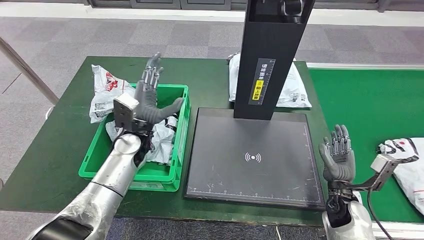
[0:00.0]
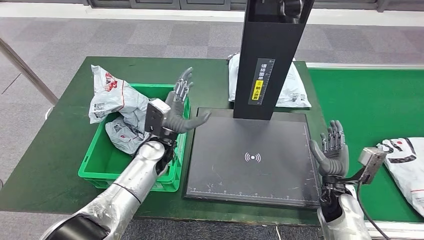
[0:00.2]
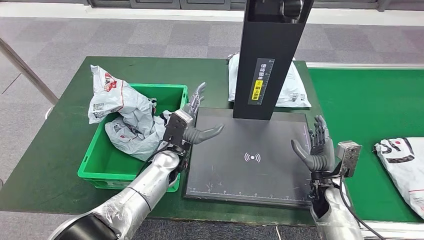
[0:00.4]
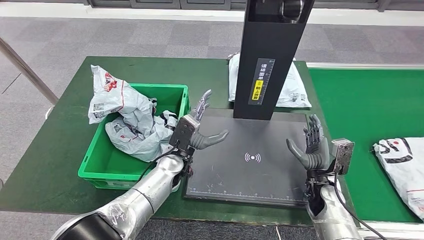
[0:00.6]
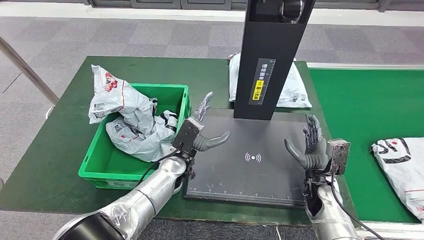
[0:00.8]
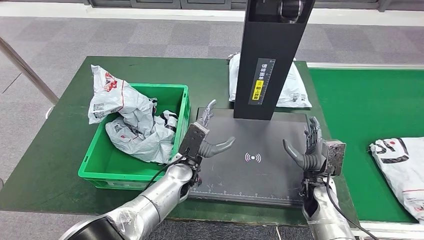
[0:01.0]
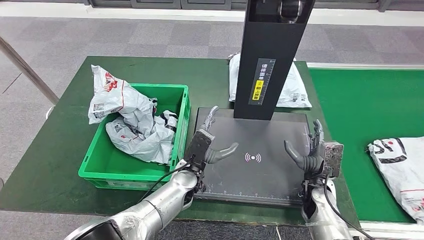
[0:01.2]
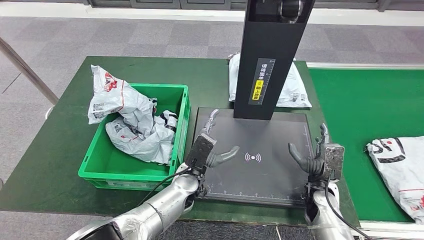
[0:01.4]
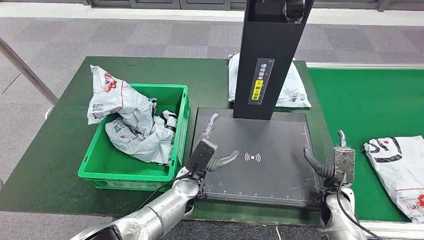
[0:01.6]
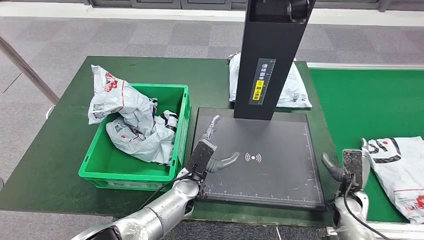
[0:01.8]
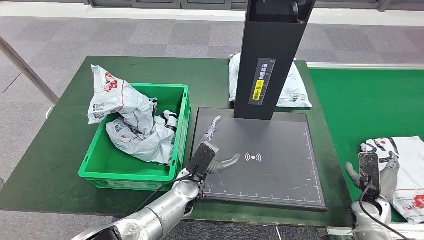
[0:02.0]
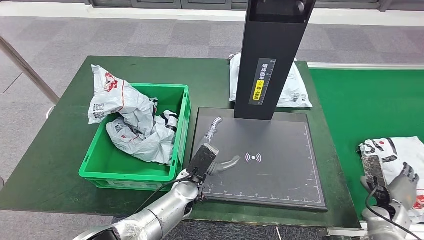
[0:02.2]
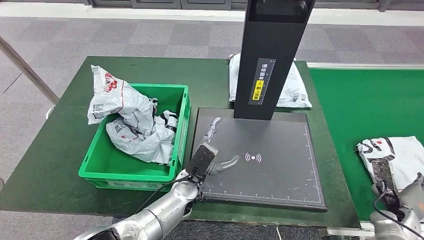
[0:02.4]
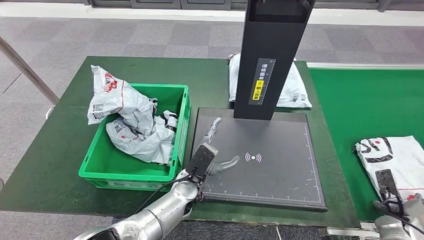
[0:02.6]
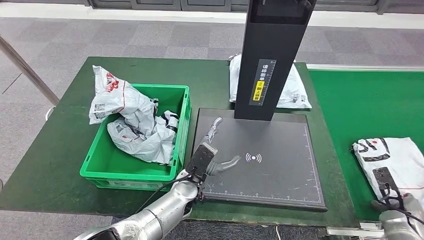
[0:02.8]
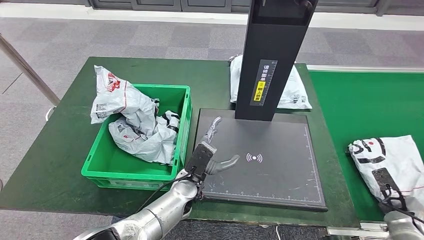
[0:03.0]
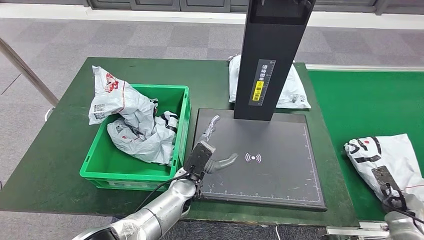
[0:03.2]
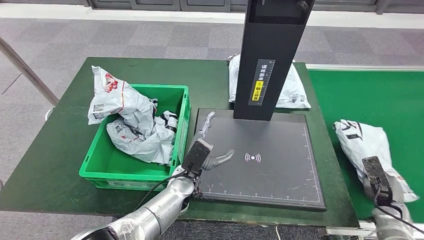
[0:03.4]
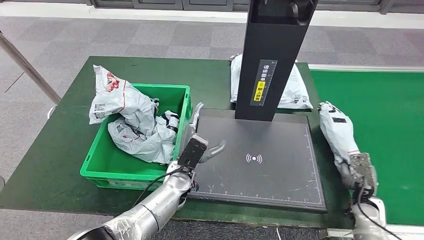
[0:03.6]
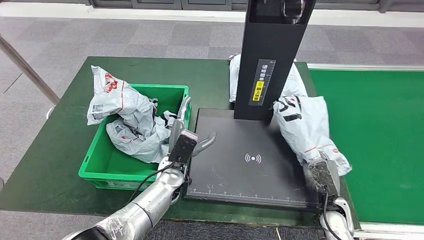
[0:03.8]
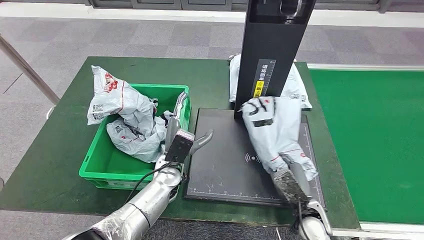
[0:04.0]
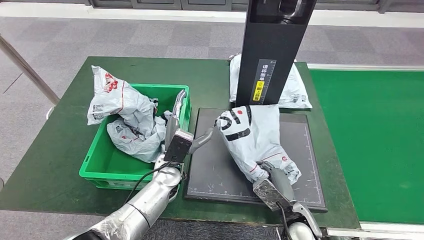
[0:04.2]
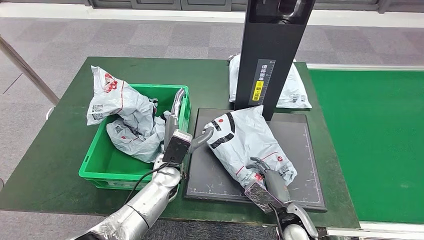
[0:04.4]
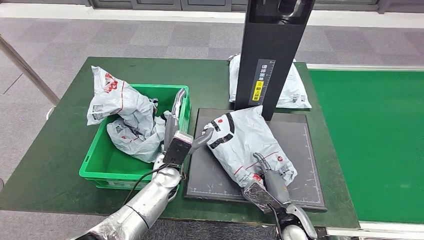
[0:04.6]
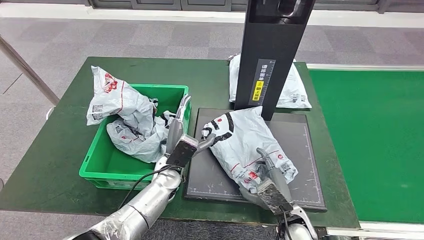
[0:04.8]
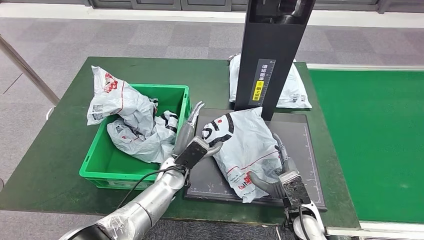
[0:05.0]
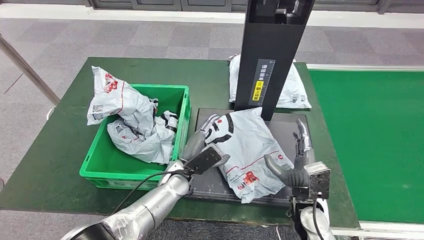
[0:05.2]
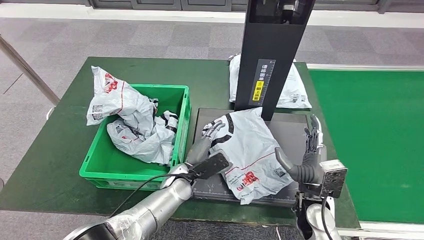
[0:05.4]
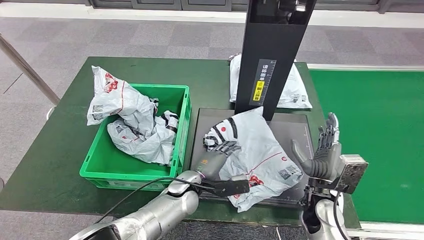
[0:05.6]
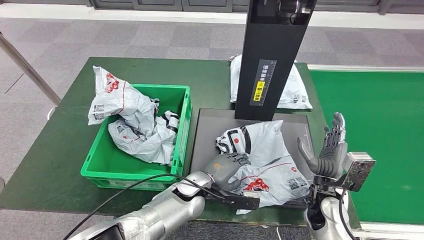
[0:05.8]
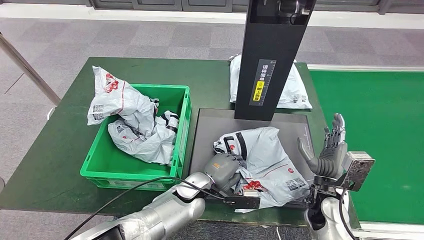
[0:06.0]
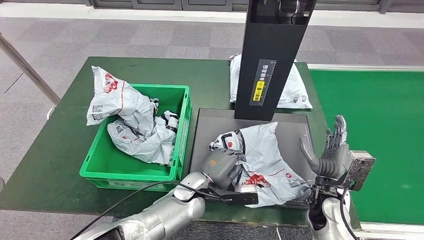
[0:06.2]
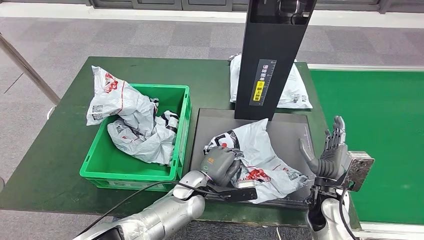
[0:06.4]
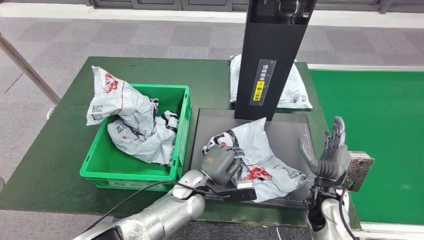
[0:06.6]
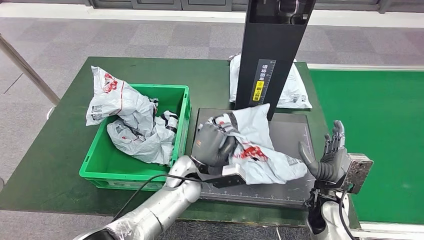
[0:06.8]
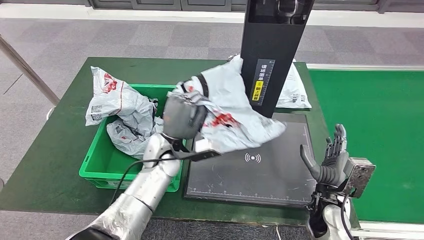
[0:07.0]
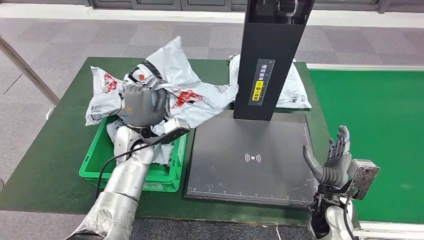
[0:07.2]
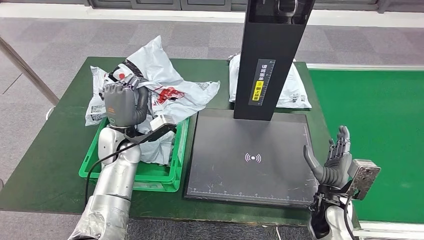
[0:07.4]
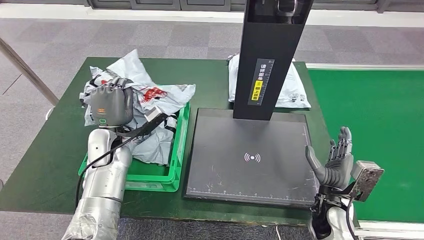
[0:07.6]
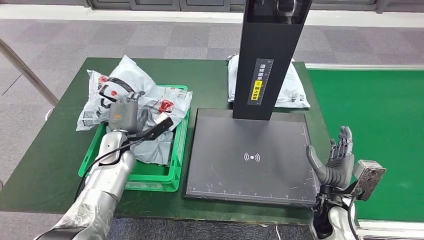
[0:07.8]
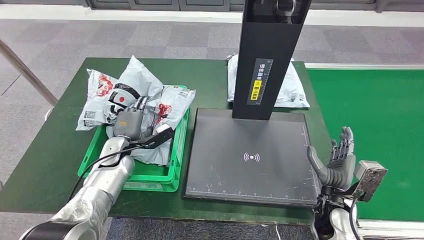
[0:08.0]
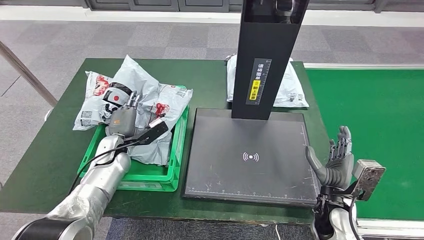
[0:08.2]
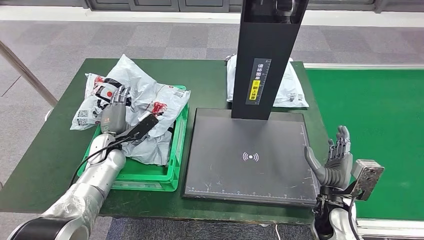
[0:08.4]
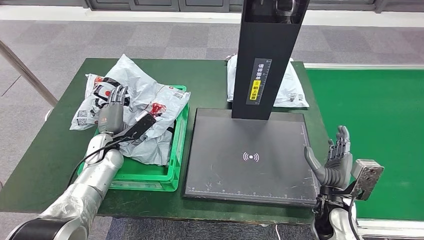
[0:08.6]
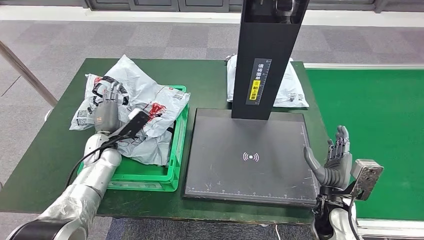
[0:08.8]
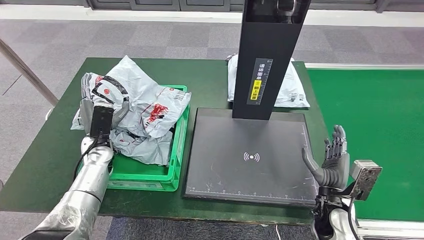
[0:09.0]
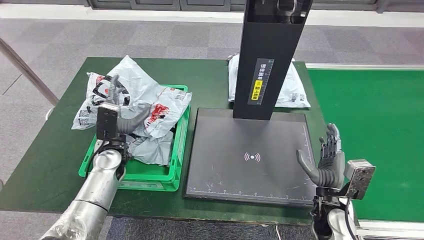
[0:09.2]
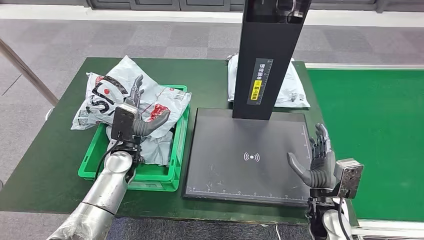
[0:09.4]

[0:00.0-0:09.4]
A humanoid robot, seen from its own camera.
Step, 0:00.0 to 0:03.2: Pick up the parcel from the conveyor belt.
Step, 0:03.6 to 0:05.6: Place the parcel onto the inbound machine.
Step, 0:05.8 to 0:07.6: Pick up the parcel from the inbound machine.
Step, 0:07.8 to 0:09.2: Place the parcel into the delivery box.
0:00.0 to 0:01.6: The left hand moves to the right, downward and backward, about 20 cm.
0:01.6 to 0:03.2: The right hand travels to the right by approximately 20 cm.
0:04.8 to 0:06.2: The left hand travels to the right by roughly 5 cm. Meanwhile the right hand heads to the right, upward and forward, covering roughly 10 cm.
0:07.8 to 0:09.4: The left hand reaches some 5 cm to the left, then returns.

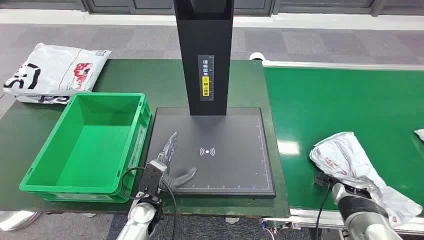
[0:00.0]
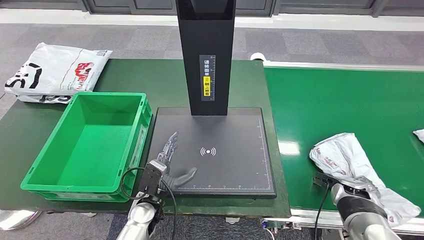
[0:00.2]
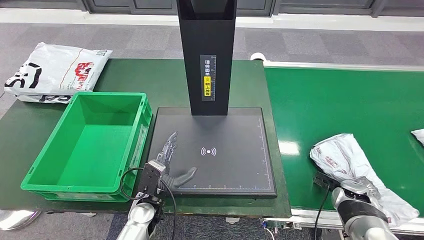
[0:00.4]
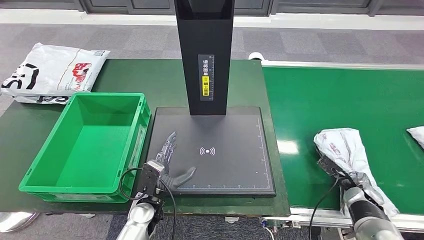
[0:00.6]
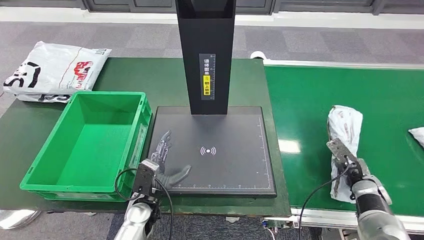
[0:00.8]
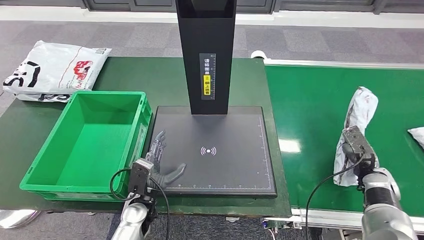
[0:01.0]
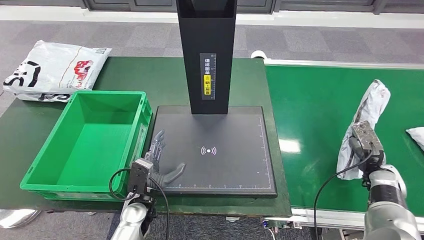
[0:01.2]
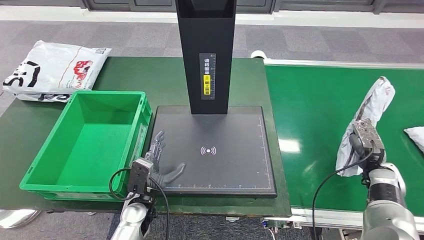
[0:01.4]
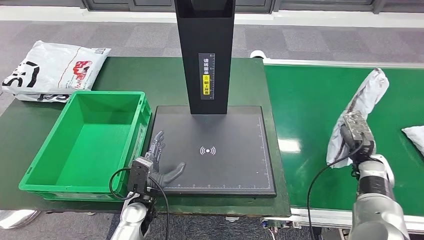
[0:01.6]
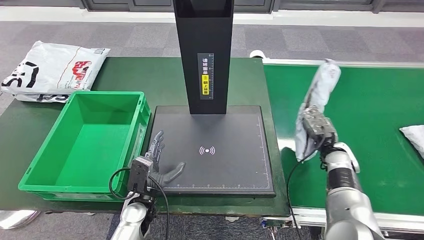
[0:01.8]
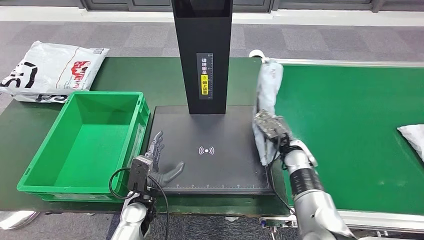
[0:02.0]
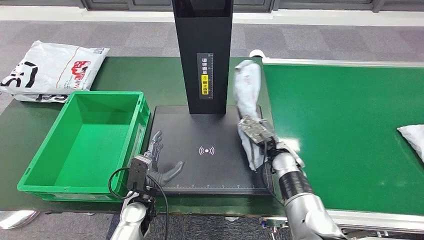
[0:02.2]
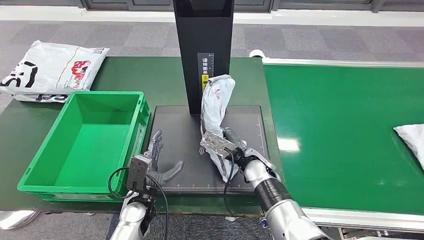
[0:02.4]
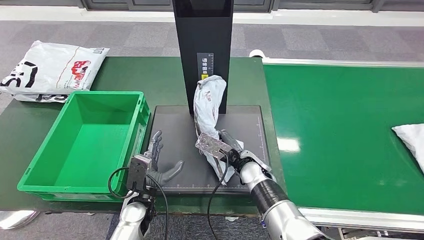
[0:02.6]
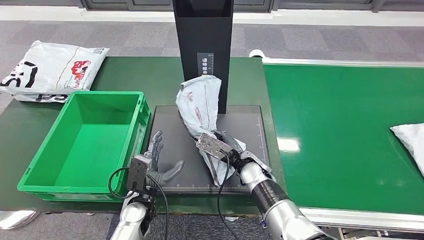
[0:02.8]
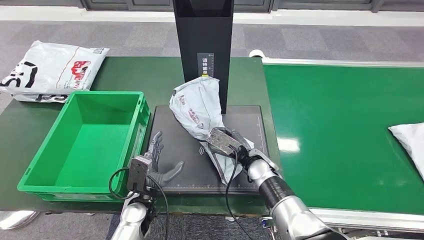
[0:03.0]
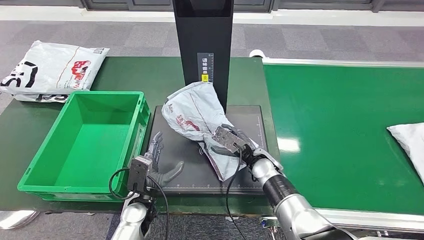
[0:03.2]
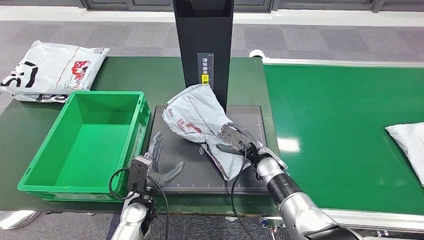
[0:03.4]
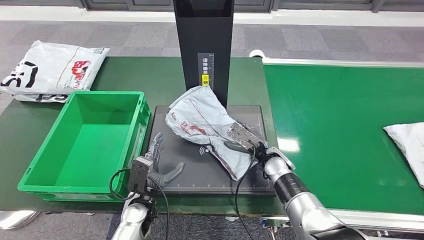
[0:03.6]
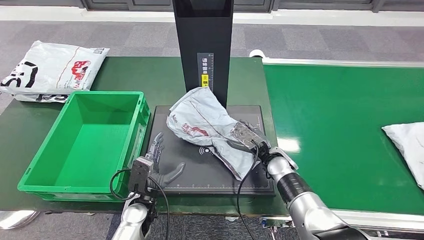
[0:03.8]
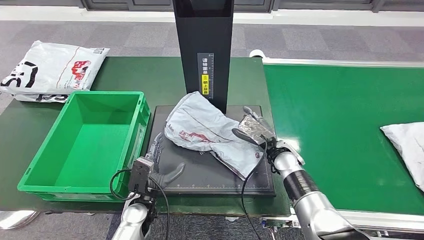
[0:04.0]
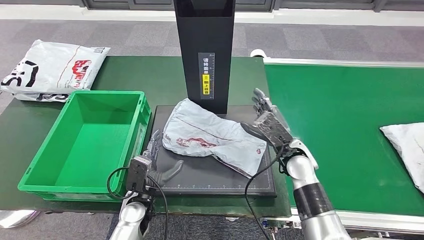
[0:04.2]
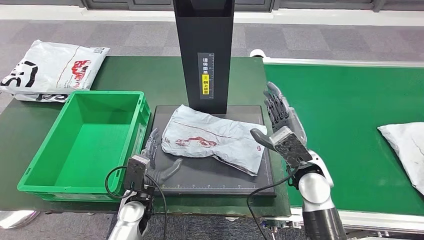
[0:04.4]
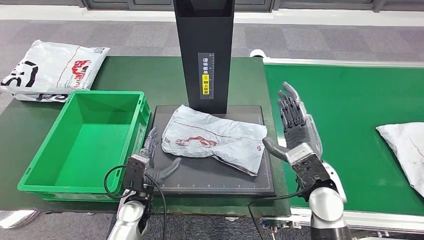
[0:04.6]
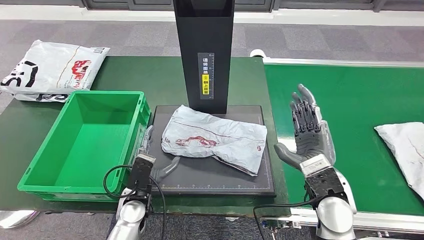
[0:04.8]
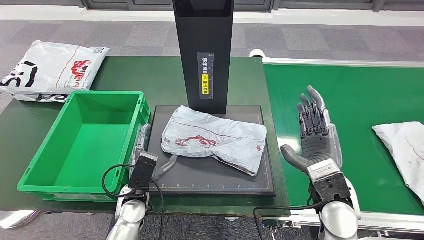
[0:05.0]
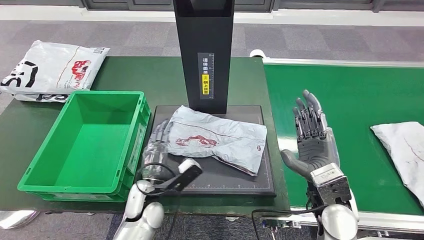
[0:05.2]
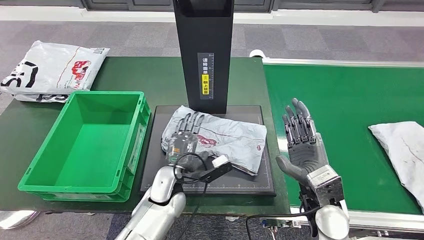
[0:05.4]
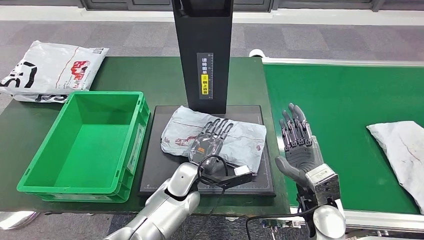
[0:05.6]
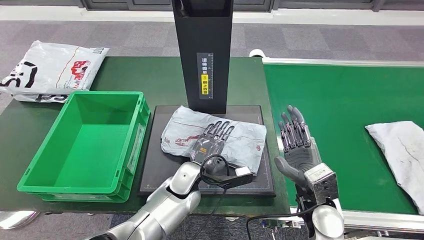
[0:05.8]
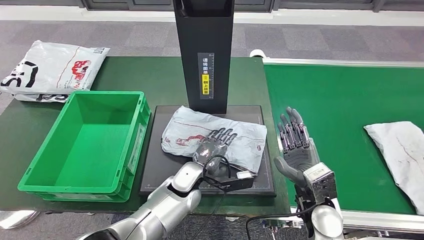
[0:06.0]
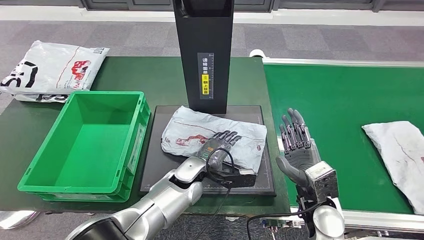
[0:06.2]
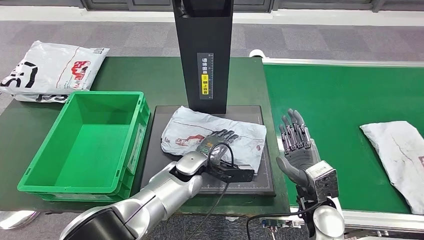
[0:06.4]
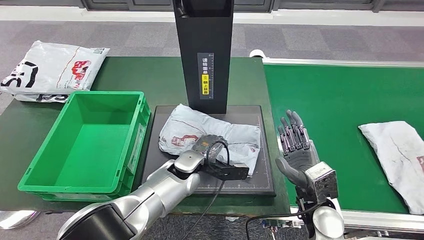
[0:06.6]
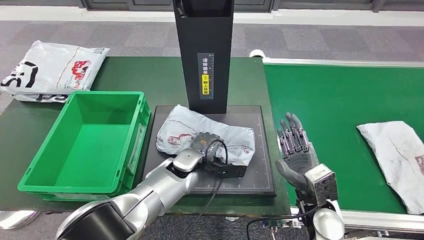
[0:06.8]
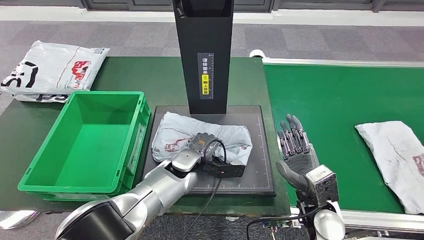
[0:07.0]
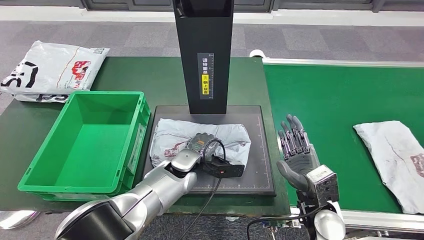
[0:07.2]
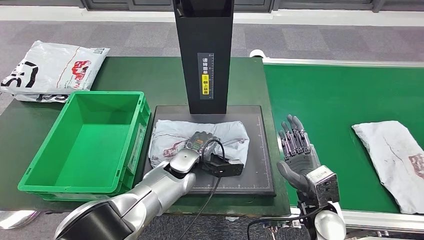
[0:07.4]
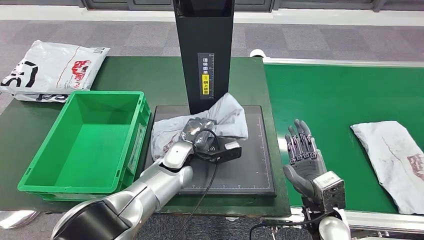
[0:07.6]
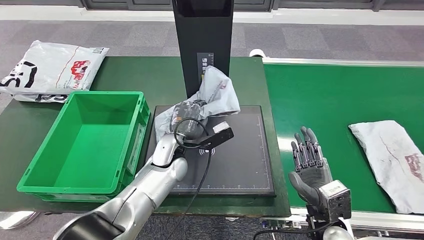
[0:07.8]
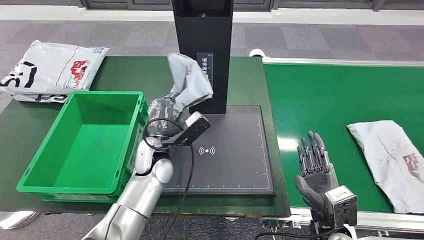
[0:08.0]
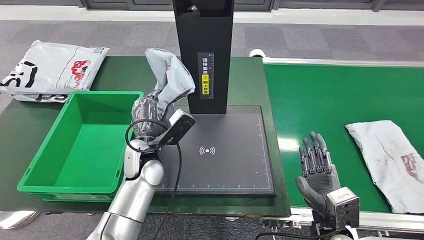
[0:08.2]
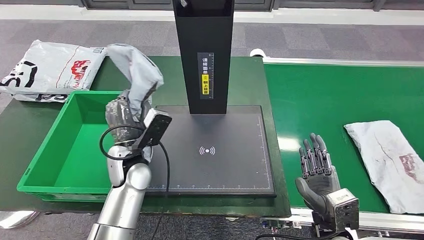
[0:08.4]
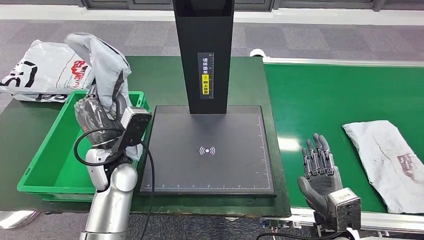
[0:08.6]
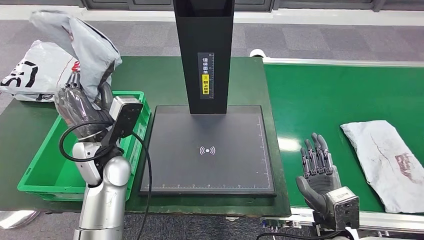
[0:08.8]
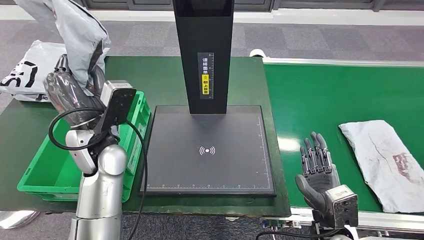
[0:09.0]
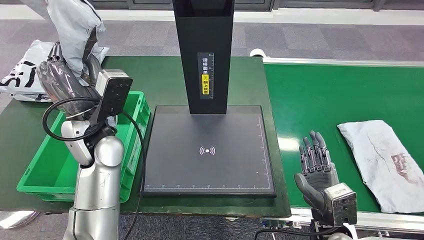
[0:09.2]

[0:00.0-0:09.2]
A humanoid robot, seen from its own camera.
Step, 0:00.0 to 0:01.2: Take the parcel off the conveyor belt.
Step, 0:01.6 to 0:03.8: Place the parcel onto the inbound machine.
Step, 0:04.0 to 0:08.2: Pick up the parcel from the inbound machine.
0:03.0 to 0:04.6: The right hand travels to the right, upward and backward by roughly 15 cm.
0:04.6 to 0:06.2: The right hand moves downward, approximately 5 cm. The left hand goes roughly 15 cm to the right and forward.
0:06.2 to 0:07.6: The left hand ends up about 5 cm from where it was.
